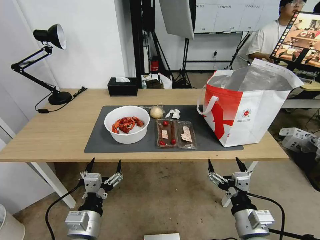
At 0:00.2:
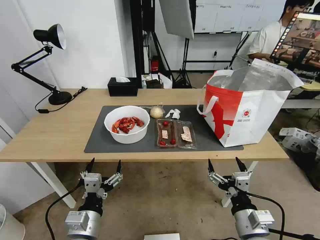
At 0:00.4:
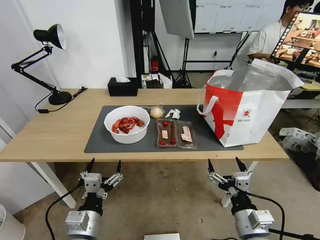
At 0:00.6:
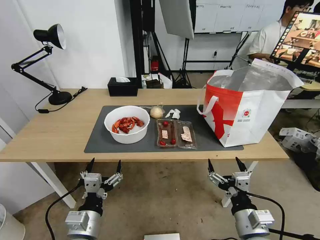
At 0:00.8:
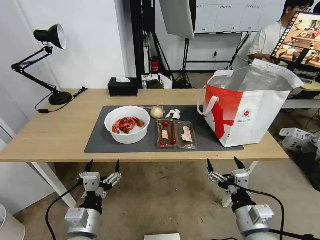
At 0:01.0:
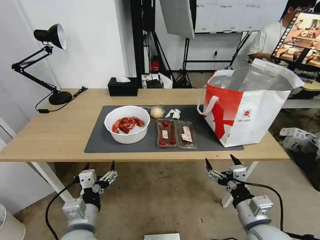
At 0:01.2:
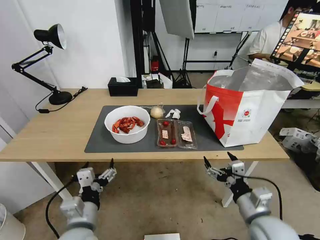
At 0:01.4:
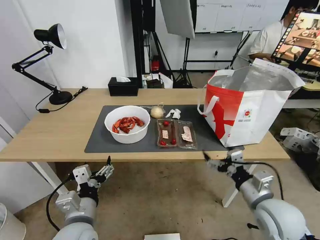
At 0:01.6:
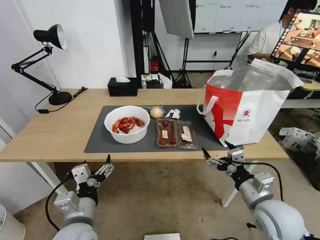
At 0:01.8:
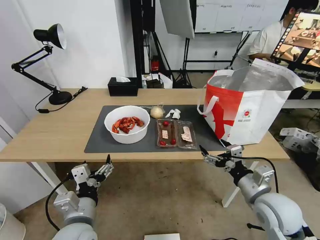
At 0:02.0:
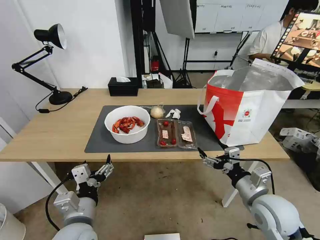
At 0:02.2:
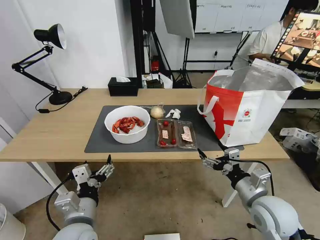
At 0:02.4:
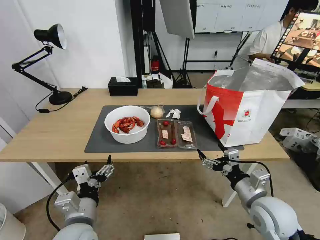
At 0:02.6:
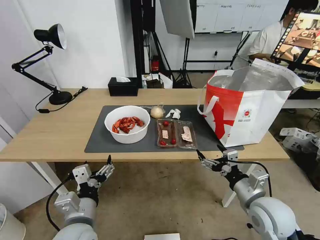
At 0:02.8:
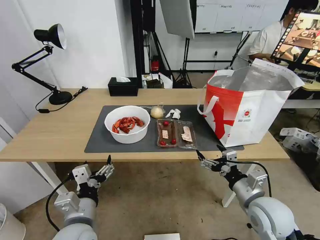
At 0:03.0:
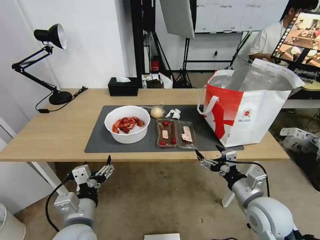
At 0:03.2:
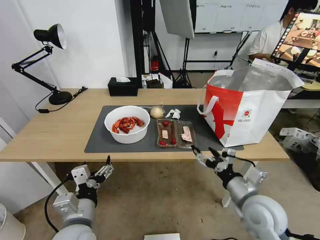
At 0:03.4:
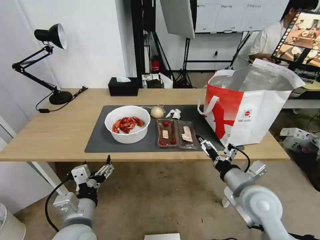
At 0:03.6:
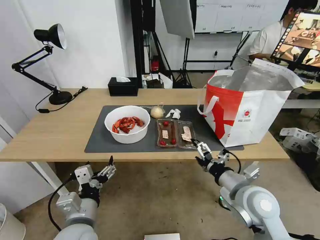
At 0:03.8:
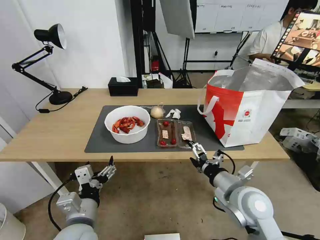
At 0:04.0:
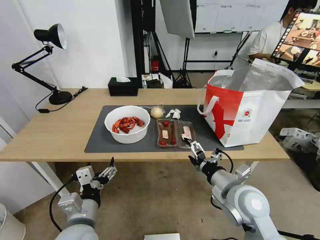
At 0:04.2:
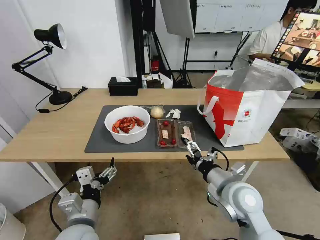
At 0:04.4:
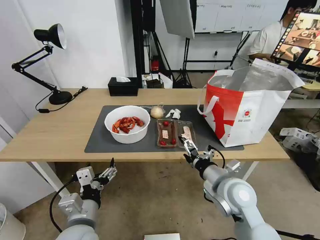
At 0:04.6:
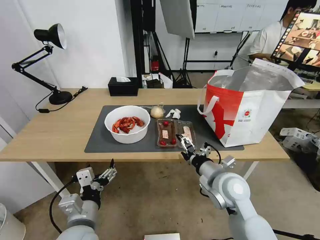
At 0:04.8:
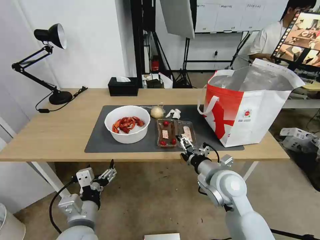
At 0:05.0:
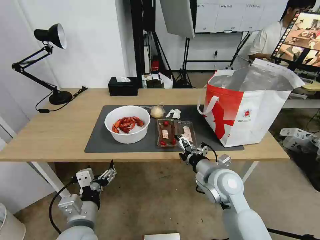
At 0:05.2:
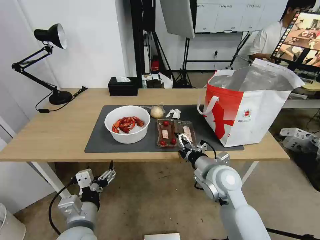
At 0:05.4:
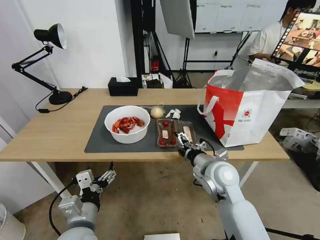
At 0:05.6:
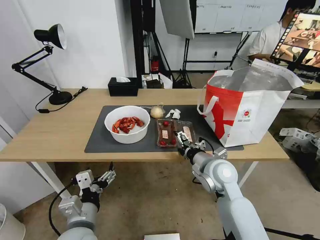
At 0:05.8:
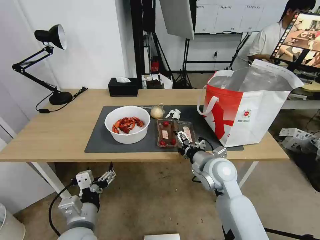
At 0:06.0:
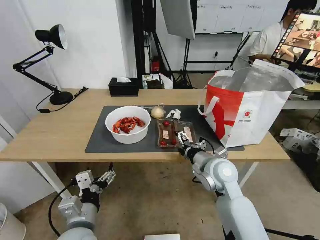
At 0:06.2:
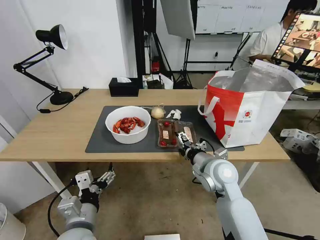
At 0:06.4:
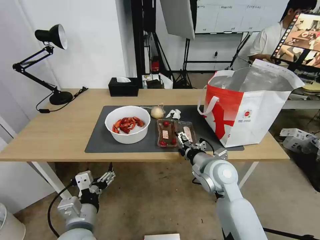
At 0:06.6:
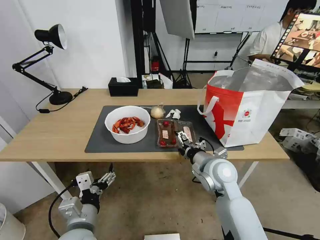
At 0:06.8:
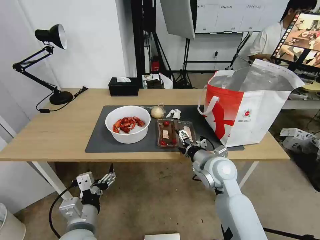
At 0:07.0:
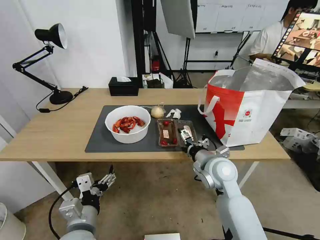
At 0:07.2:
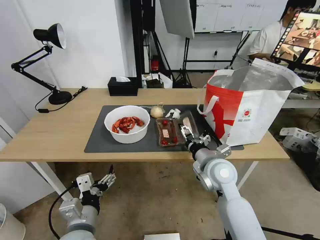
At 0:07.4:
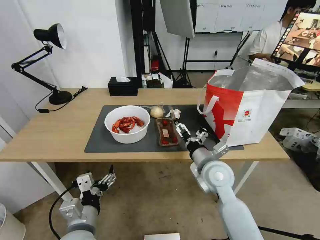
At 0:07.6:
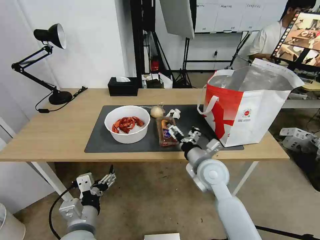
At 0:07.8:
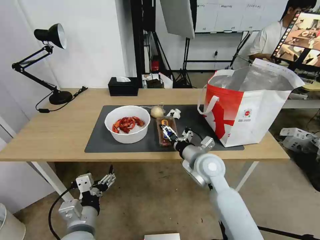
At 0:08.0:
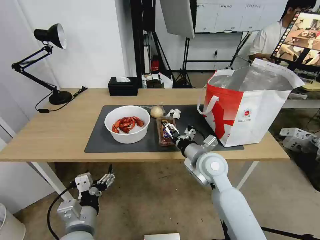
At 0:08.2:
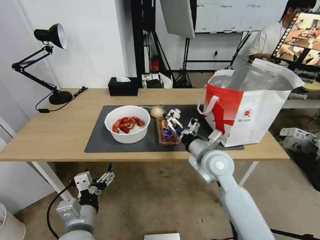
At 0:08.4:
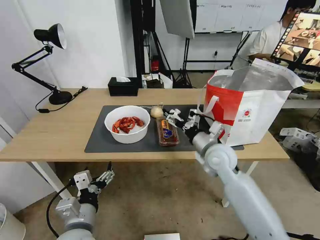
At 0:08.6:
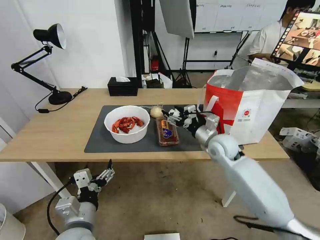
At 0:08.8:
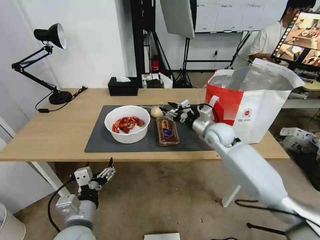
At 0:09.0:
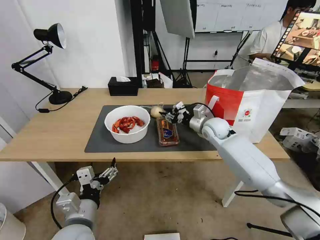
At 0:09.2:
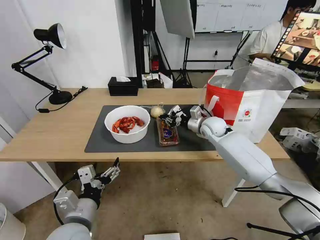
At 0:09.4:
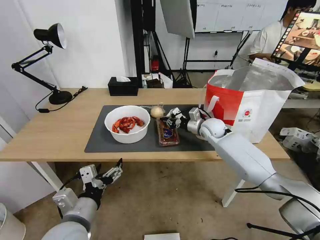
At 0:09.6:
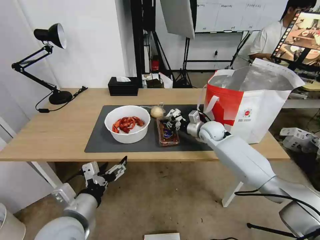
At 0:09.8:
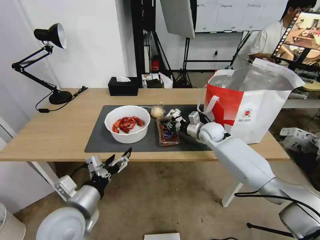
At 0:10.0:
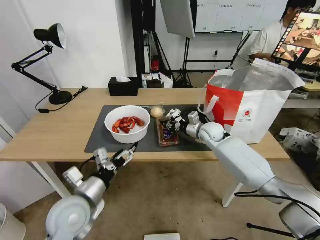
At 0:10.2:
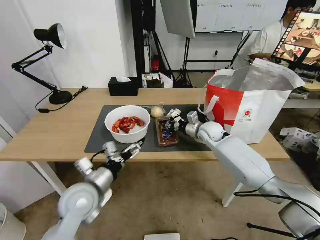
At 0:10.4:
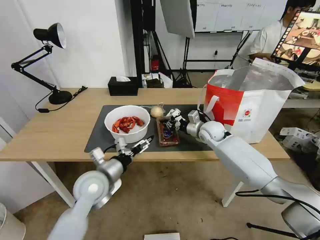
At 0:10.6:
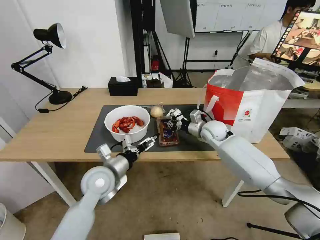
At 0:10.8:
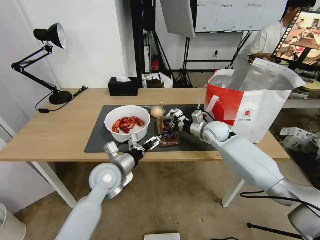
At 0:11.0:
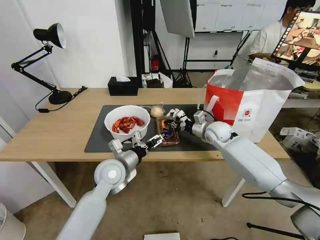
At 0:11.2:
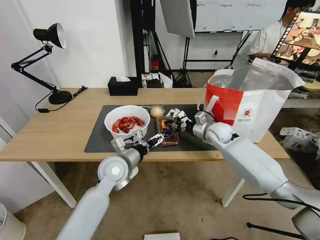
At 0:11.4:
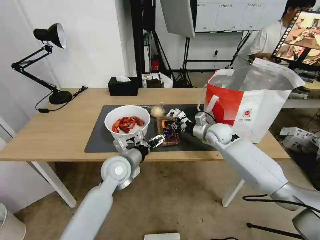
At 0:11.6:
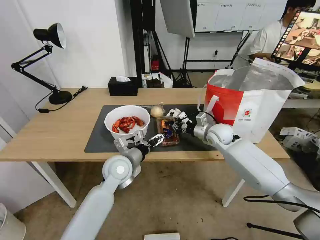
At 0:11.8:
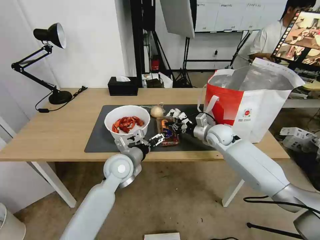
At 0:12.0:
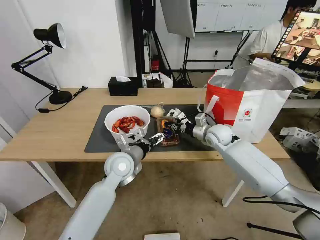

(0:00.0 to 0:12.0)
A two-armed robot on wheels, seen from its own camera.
Task of the whole recording: Pick up the trash from the table and place it into the takeout bag.
0:01.6 - 0:03.0: The grippers make only small movements.
0:03.0 - 0:04.4: The right gripper shifts roughly 5 cm to the left.
0:04.4 - 0:06.0: The right gripper is displaced forward by roughly 10 cm.
0:06.0 - 0:07.6: There are only small adjustments of the grippers.
0:07.6 - 0:09.0: The right gripper goes about 20 cm forward, and closes up.
0:09.0 - 0:10.4: The left gripper shifts some 10 cm forward.
0:10.4 - 0:12.0: The left gripper goes roughly 10 cm forward and to the right.

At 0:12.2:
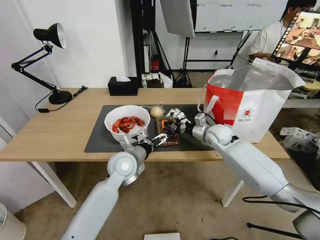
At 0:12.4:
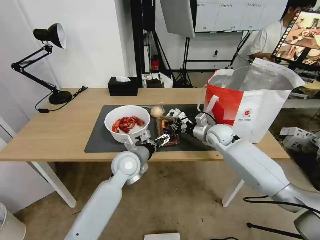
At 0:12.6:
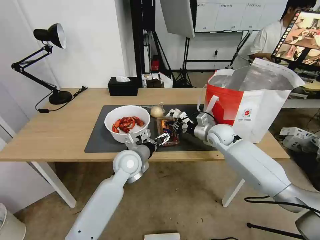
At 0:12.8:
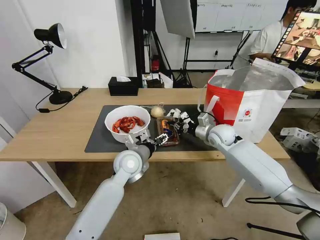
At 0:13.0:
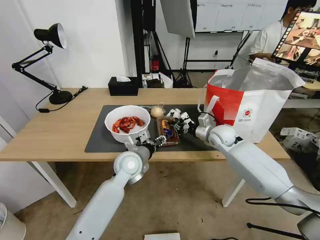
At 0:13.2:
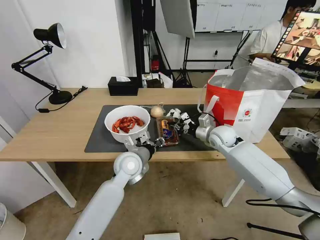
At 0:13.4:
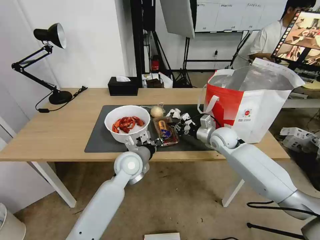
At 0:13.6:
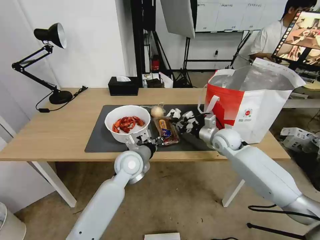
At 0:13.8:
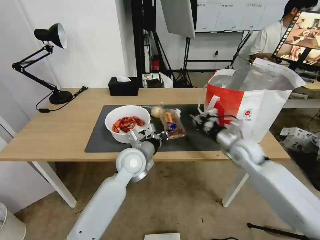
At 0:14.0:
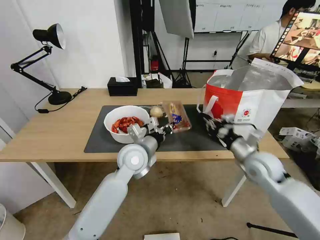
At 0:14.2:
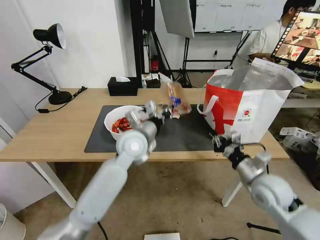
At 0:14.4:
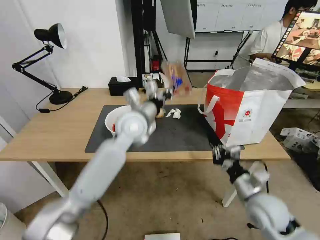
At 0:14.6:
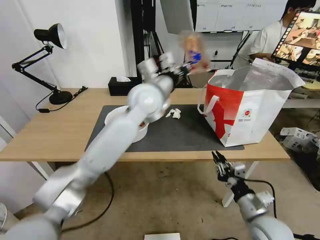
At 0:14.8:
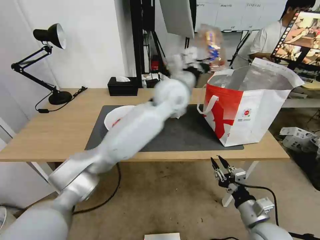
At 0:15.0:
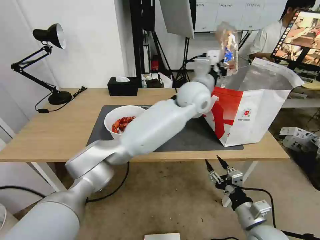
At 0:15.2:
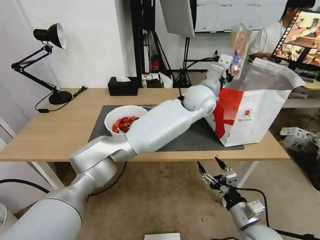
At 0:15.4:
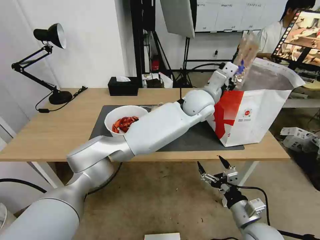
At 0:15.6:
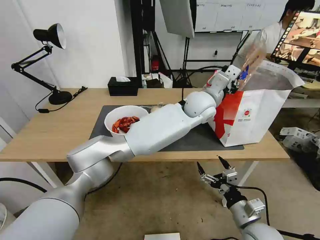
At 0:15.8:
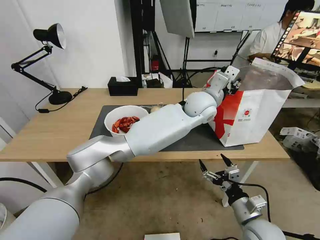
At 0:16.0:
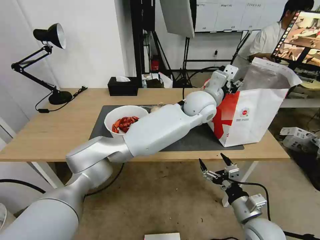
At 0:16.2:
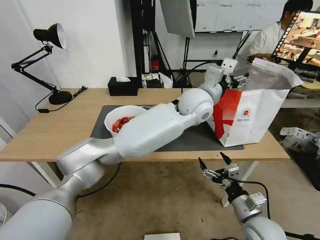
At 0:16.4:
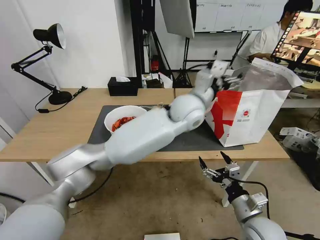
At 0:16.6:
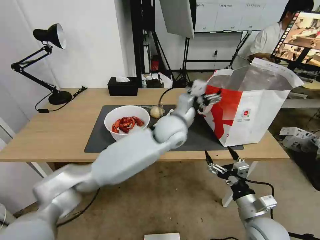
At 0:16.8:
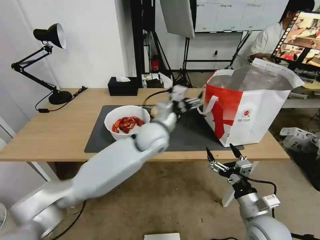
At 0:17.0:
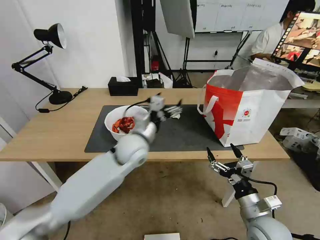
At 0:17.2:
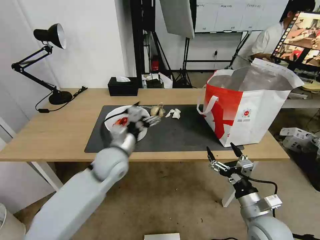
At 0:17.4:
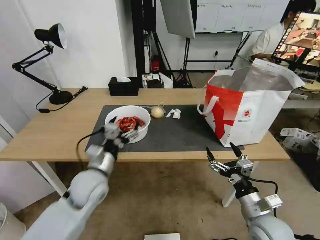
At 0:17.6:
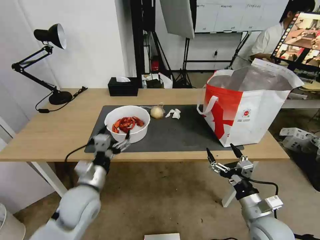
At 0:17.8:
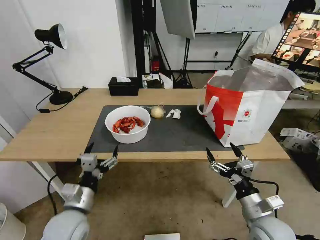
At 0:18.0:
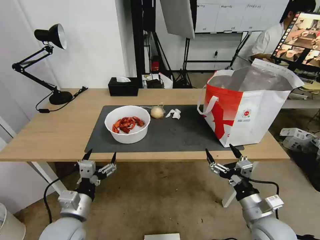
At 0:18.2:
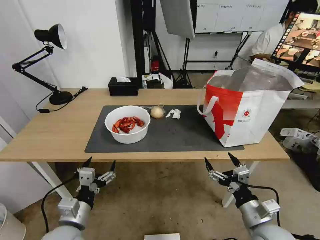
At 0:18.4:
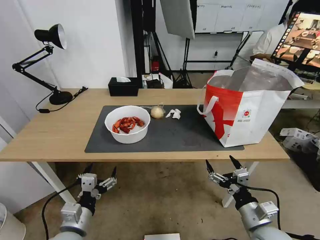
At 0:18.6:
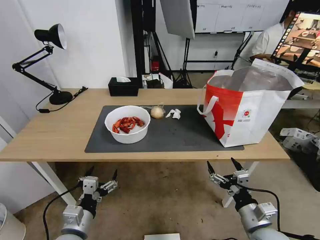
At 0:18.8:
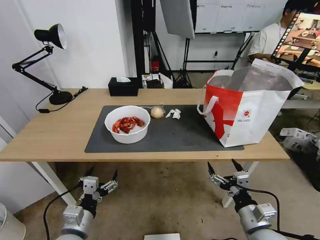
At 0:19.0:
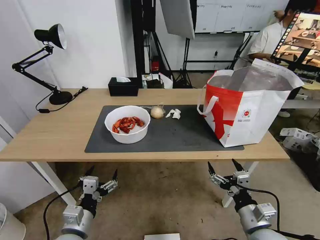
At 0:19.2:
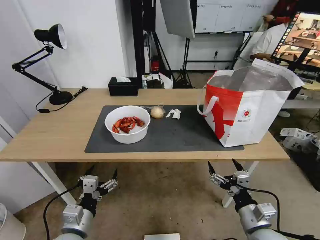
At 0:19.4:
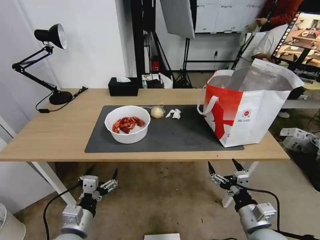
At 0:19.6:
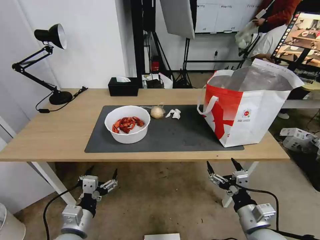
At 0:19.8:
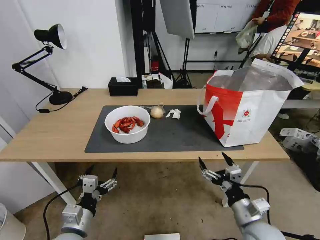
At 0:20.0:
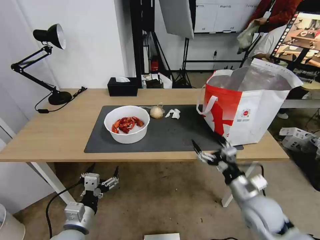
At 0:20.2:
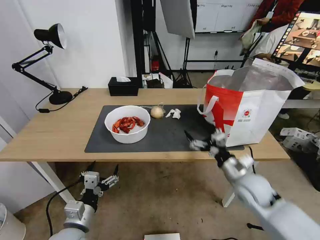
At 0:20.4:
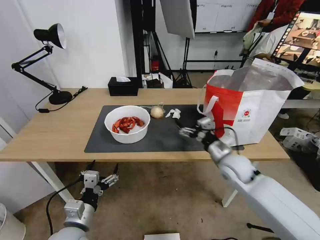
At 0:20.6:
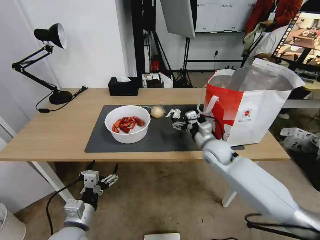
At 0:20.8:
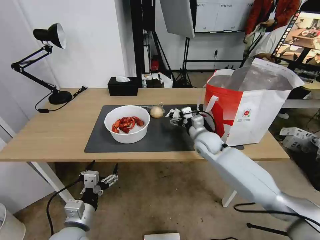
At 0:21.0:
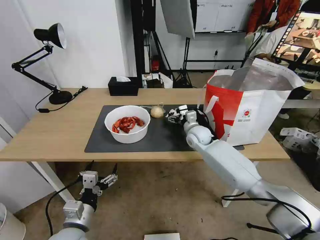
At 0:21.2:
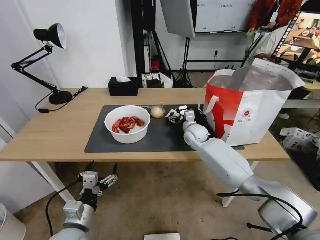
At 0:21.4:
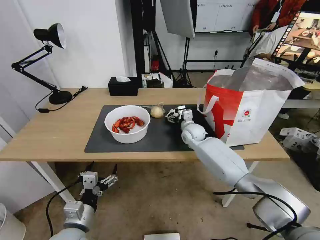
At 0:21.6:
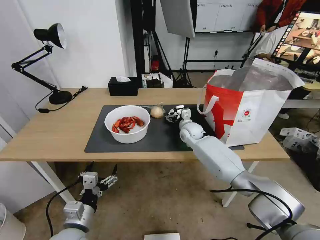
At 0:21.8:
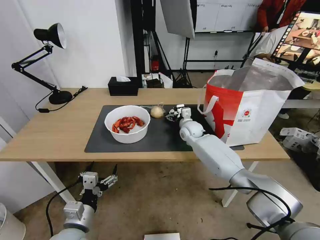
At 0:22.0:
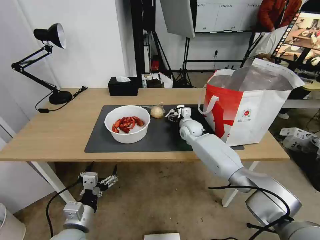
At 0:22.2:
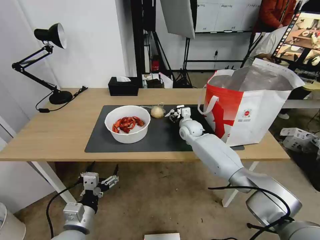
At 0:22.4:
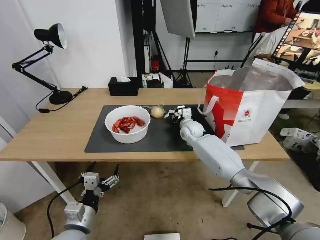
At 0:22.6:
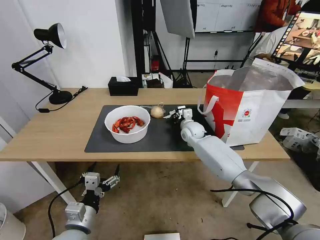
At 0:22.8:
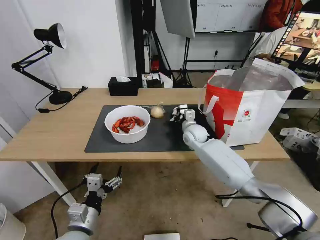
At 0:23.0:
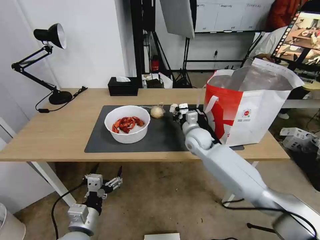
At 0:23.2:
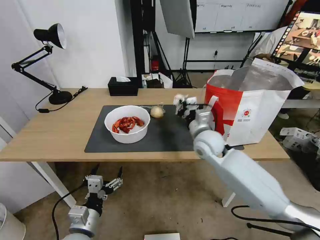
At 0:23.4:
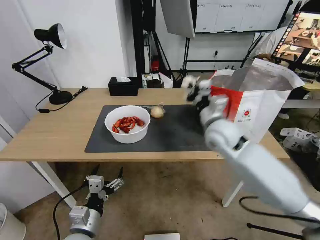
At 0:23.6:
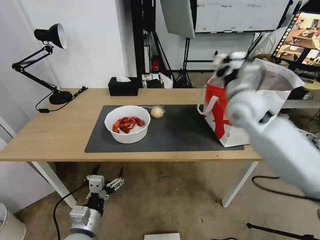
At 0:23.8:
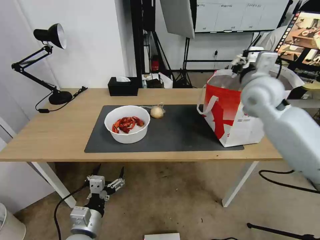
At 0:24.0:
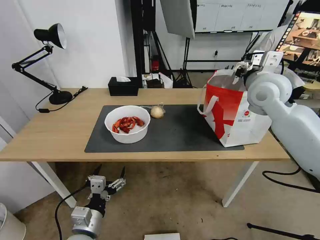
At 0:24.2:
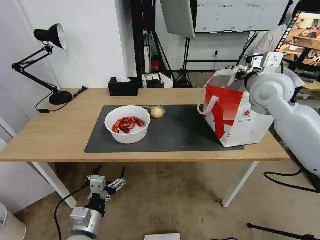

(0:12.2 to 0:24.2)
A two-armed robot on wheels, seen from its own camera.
Task of the whole recording: Pick up the trash from the table and place it into the takeout bag.
0:12.2 - 0:13.8: The left gripper closes its fingers.
0:13.8 - 0:15.2: The right gripper travels backward by some 30 cm, and opens up, while the left gripper moves to the right, upward and forward, approximately 30 cm.
0:15.2 - 0:16.6: The left gripper moves to the left, backward and downward, about 15 cm, and opens up.
0:16.6 - 0:18.2: The left gripper goes about 40 cm to the left, backward and downward.
0:18.2 - 0:19.8: The grippers move only a little.
0:19.8 - 0:21.2: The right gripper travels forward by approximately 35 cm.
0:21.2 - 0:22.6: The right gripper closes up.
0:22.6 - 0:24.2: The right gripper travels upward and to the right by approximately 30 cm.
